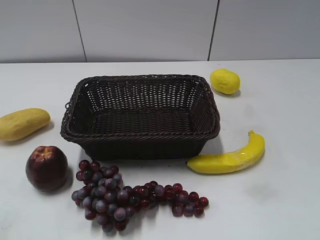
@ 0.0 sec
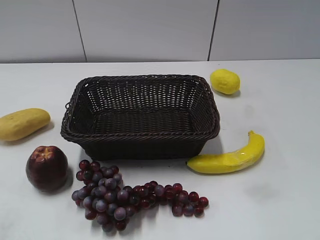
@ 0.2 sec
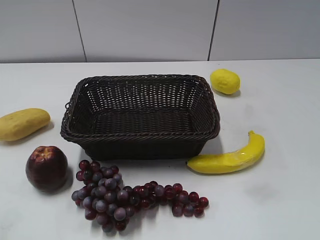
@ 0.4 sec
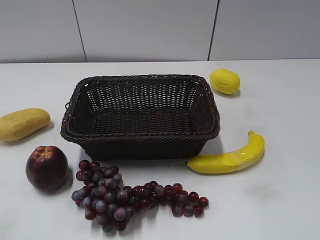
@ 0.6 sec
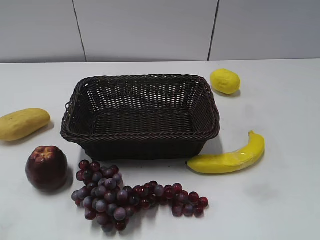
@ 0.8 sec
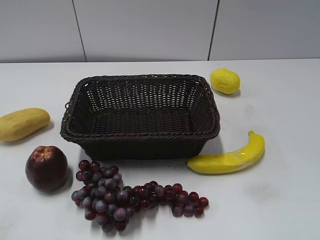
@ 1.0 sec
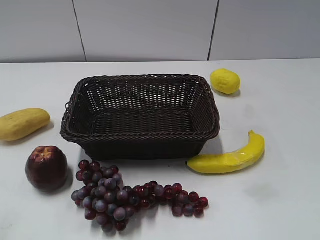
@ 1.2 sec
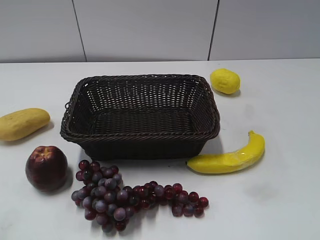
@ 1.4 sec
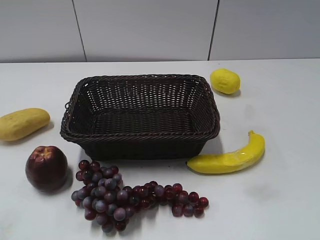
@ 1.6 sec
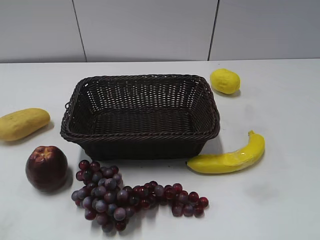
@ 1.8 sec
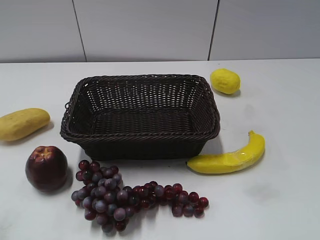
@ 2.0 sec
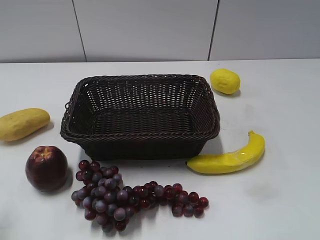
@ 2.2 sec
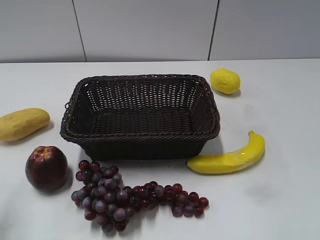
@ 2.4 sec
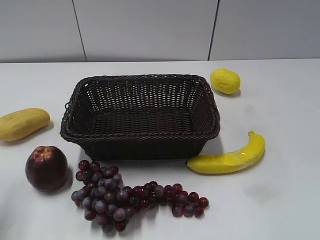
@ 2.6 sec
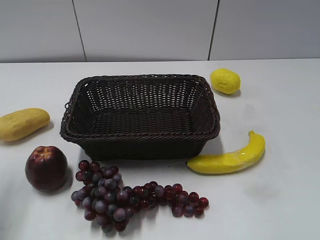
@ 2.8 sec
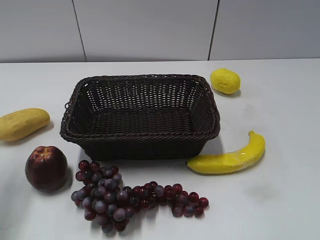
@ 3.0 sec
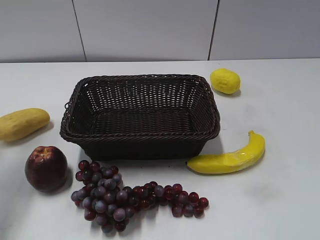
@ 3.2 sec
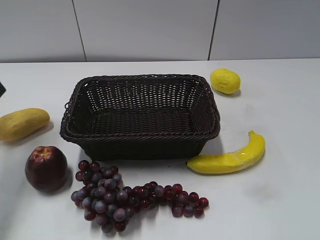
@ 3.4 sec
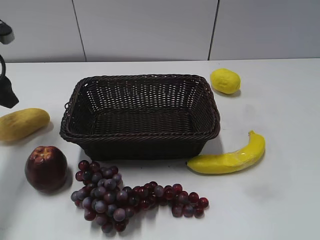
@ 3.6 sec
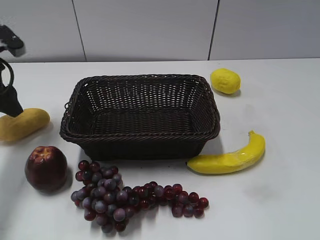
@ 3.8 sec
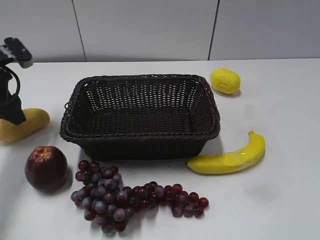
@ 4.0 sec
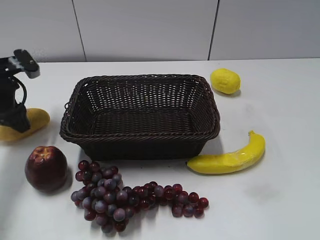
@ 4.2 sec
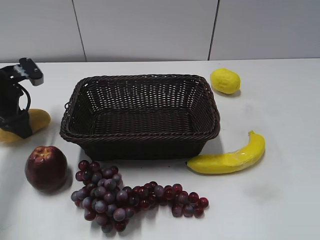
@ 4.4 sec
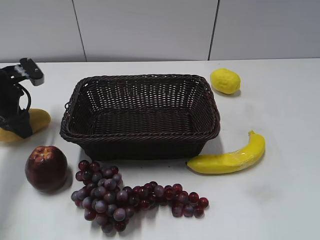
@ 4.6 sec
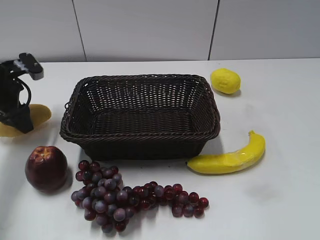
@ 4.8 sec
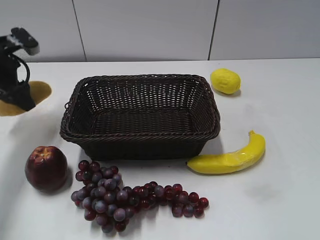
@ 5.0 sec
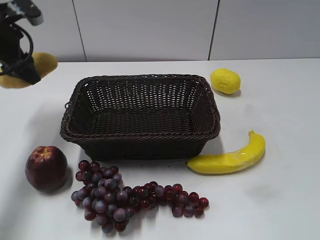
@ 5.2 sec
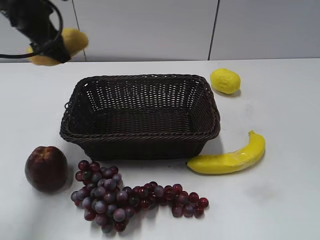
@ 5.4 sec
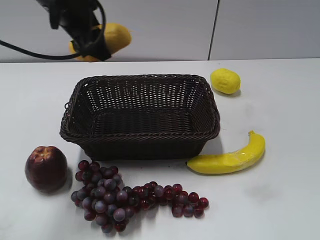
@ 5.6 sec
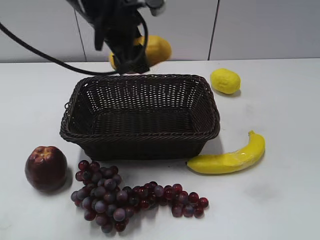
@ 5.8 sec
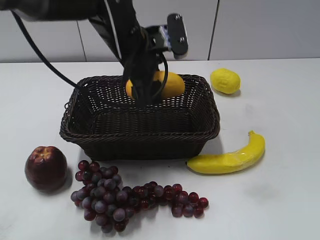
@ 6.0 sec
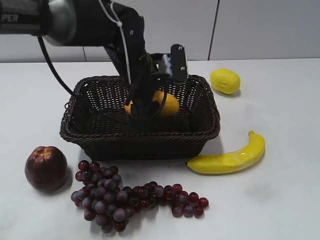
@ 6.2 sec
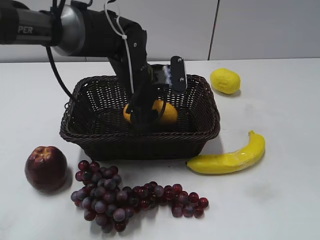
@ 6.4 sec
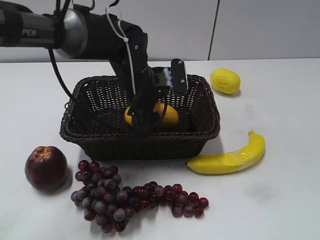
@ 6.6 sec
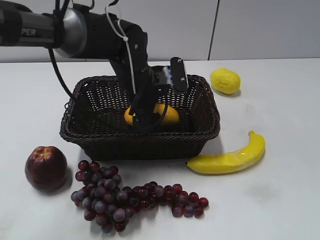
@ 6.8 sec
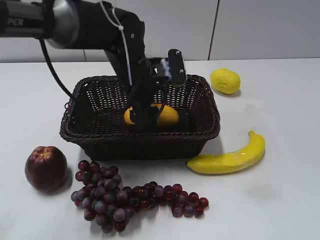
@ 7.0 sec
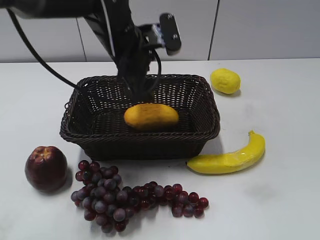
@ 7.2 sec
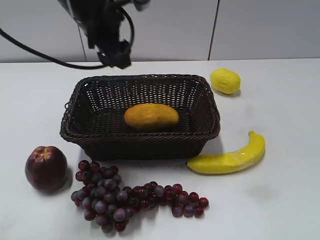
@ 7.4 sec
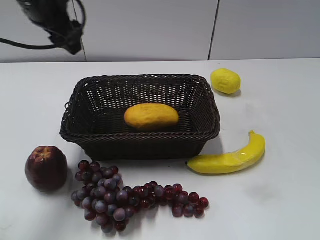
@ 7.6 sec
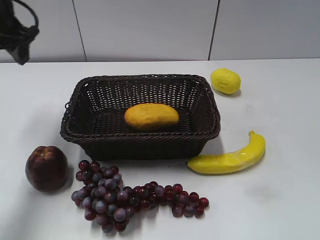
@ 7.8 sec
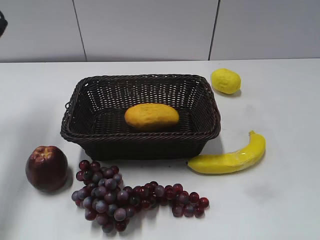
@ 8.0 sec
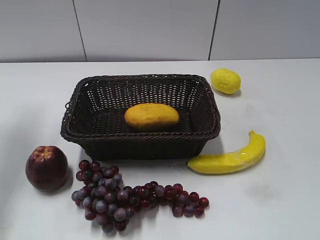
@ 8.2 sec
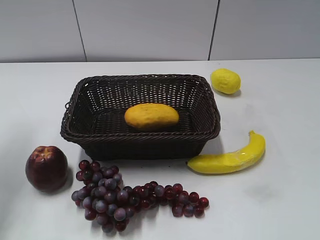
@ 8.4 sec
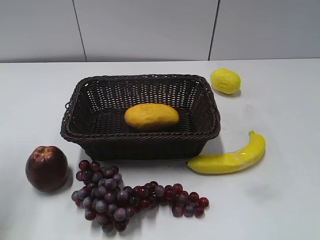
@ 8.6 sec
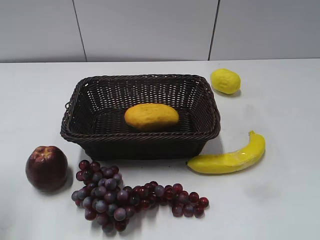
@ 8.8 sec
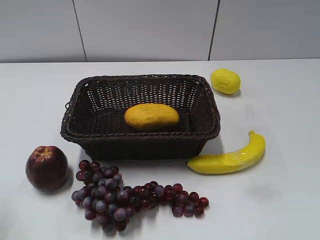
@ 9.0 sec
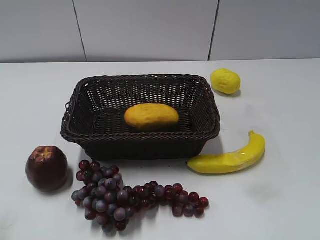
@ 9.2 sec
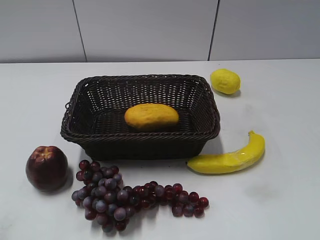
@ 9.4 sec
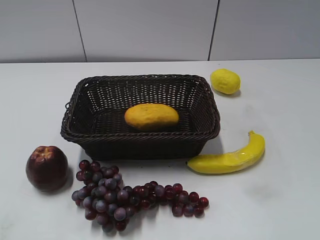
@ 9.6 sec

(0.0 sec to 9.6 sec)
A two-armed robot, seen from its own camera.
Step, 3.4 sec - 4.6 sec: Grasp the mango with left gripper.
Step, 4.8 sec - 6.8 sec: Place the mango in the basket with left gripper.
1.6 sec - 3.2 sec: The left gripper goes some 30 cm forward.
3.2 sec - 4.8 sec: The left gripper heads downward and forward, covering some 15 cm.
4.8 sec - 6.4 sec: The left gripper moves to the right, approximately 25 cm.
6.4 sec - 8.0 sec: The left gripper moves to the left and upward, approximately 30 cm, and opens, then closes again.
8.0 sec - 9.6 sec: The left gripper is displaced backward by about 35 cm.

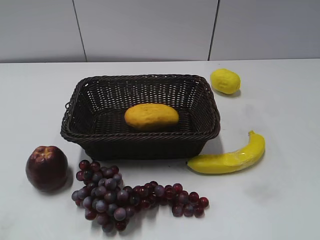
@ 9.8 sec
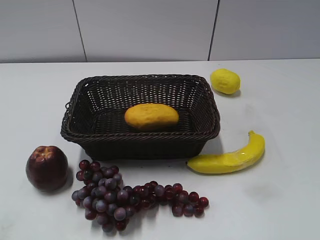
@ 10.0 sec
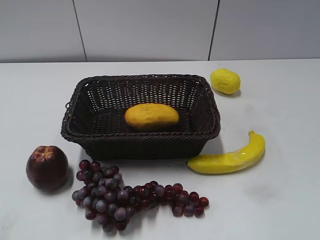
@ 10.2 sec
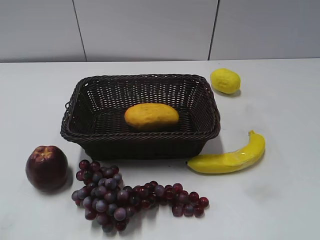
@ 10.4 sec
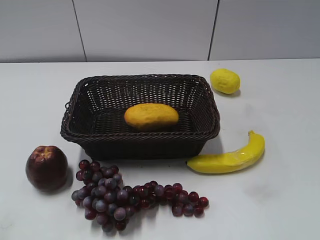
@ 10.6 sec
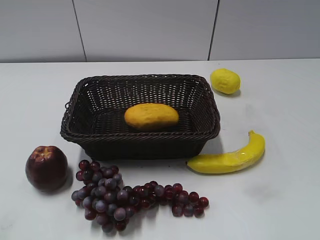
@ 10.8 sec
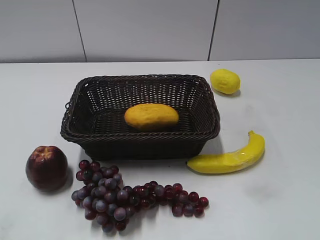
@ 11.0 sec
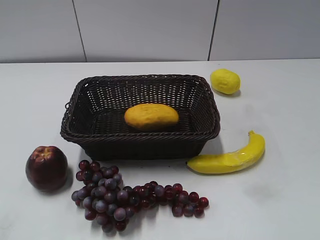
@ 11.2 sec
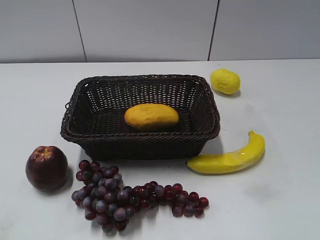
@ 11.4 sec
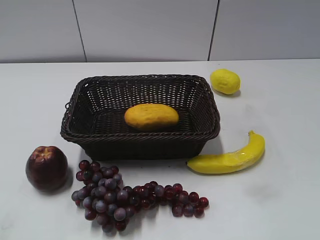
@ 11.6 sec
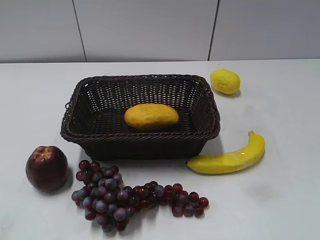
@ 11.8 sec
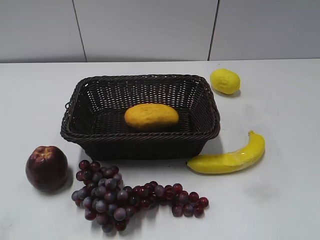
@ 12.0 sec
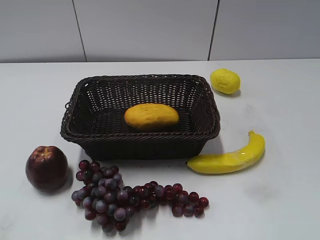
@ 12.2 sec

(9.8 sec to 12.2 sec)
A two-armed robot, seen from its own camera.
11.0 sec - 12.2 sec: Both grippers stay about where they are.
